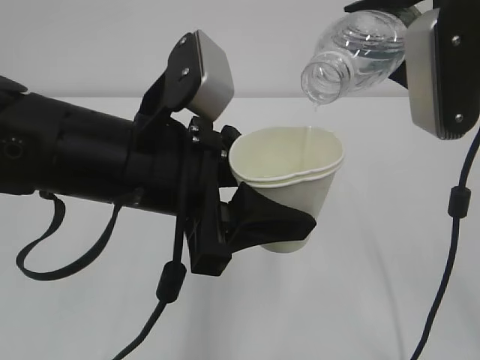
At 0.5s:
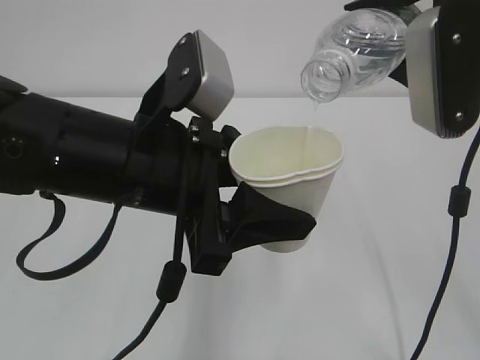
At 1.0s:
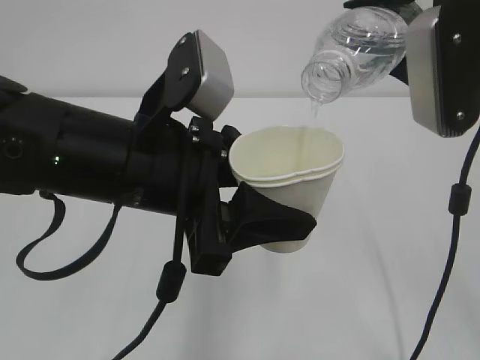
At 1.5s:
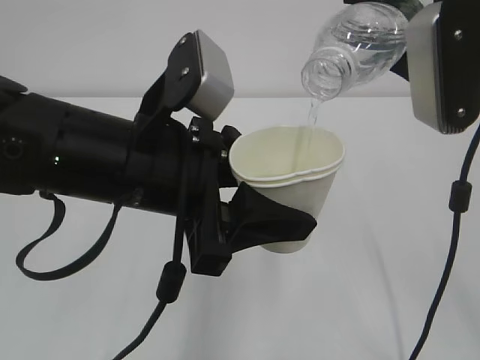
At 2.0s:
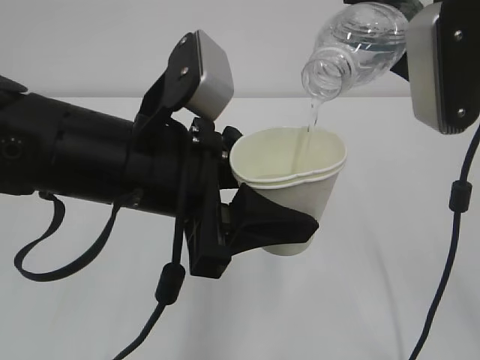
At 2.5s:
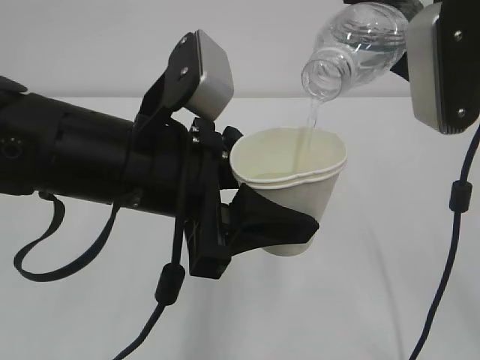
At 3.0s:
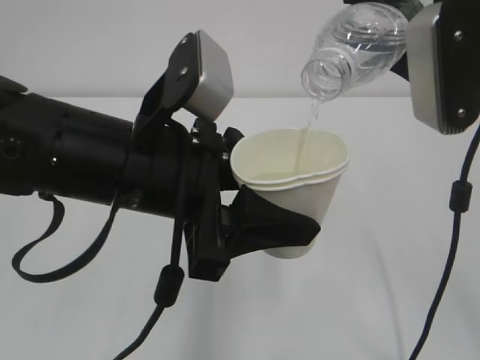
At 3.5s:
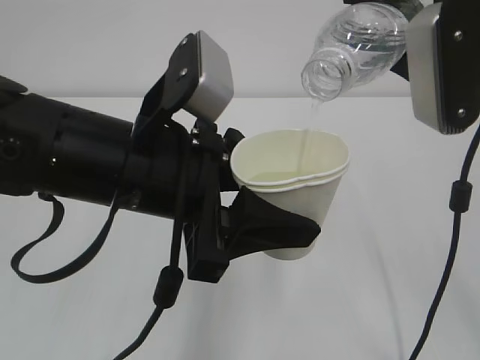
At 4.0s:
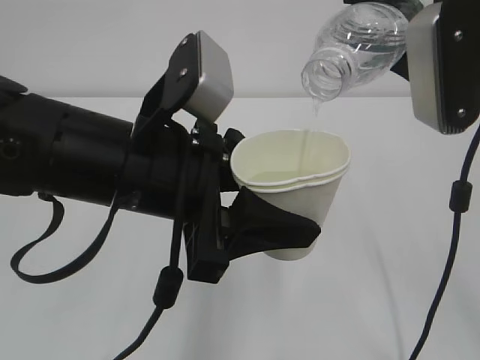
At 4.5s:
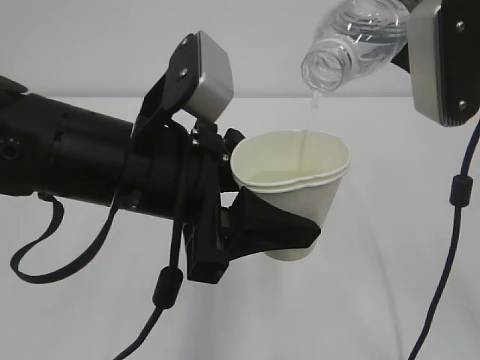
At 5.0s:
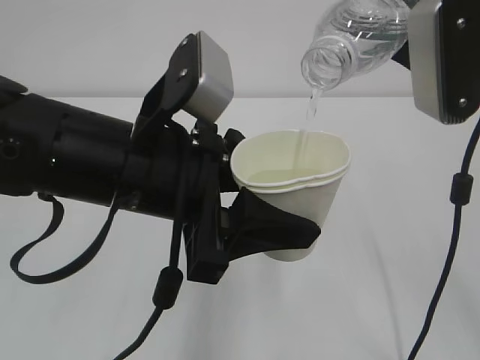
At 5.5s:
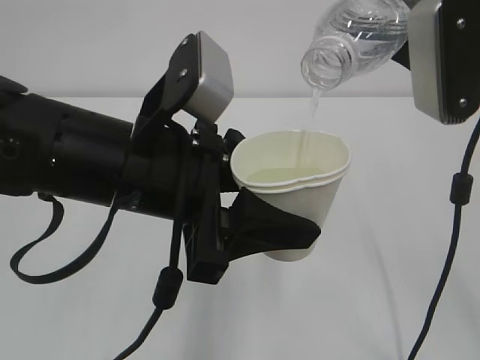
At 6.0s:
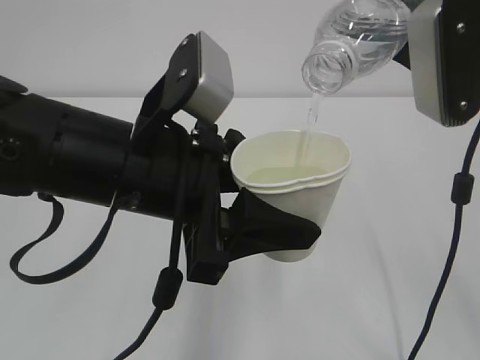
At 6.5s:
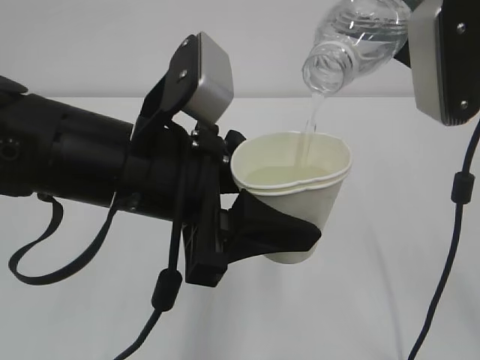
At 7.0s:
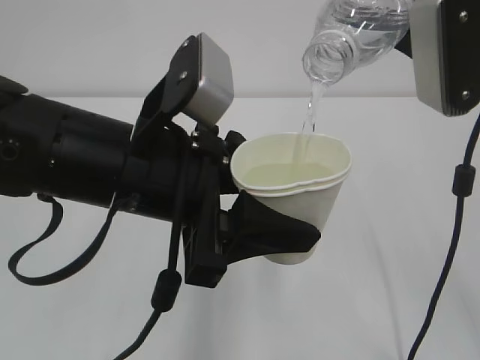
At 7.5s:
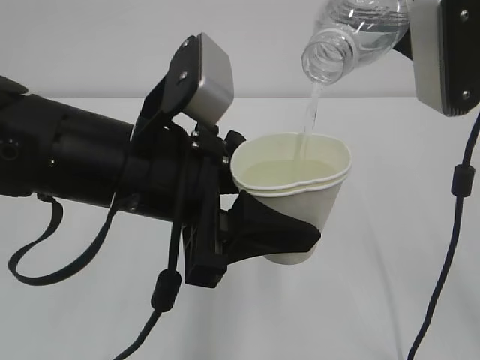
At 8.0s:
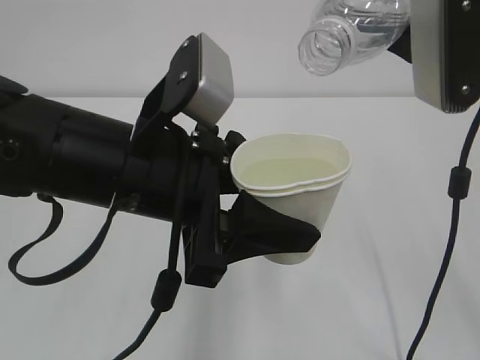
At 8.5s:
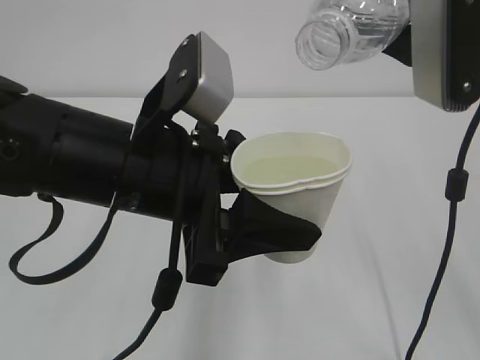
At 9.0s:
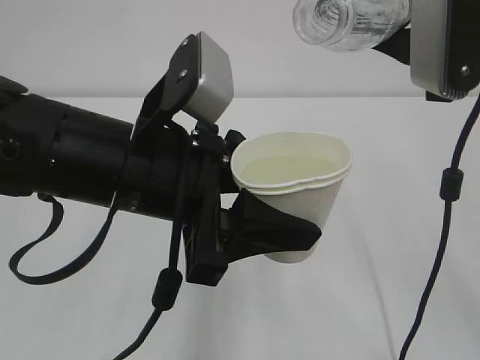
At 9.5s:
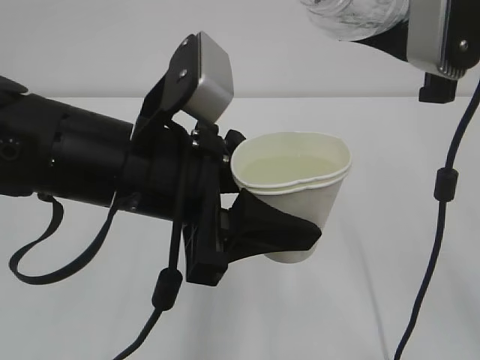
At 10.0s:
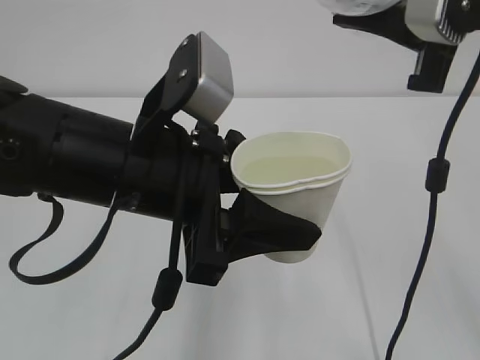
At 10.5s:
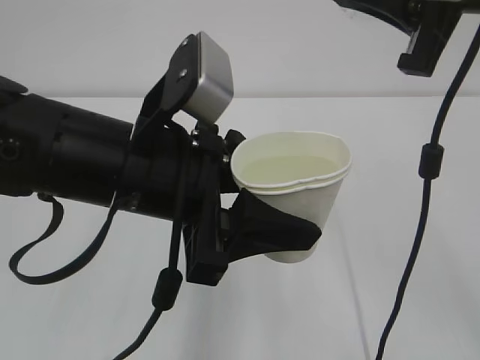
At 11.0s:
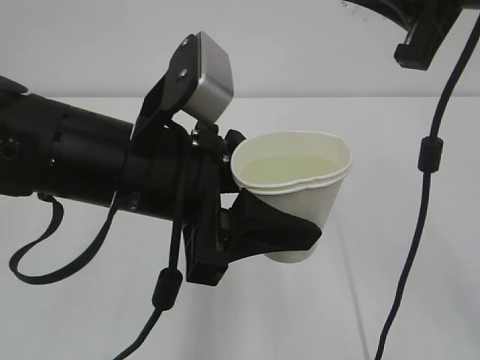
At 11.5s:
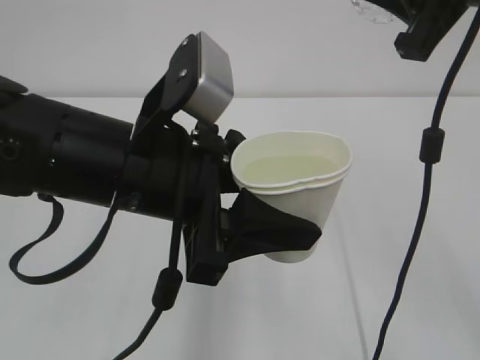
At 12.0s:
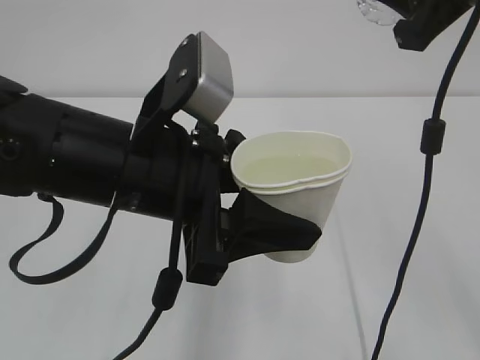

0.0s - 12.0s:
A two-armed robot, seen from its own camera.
0.0s - 6.0s: Neither gripper changes place.
6.0s - 8.0s: Both grippers stay put.

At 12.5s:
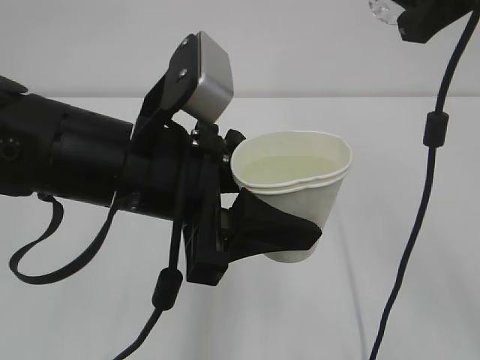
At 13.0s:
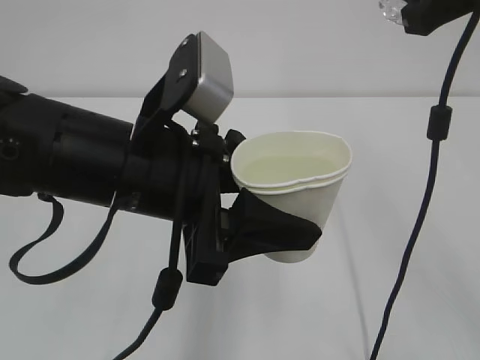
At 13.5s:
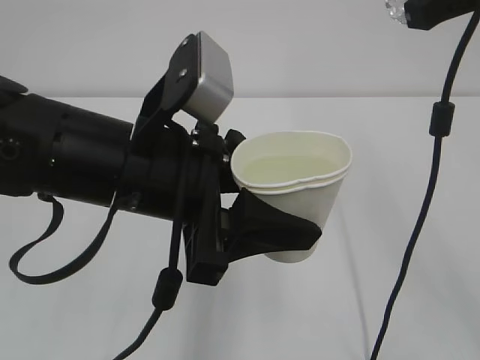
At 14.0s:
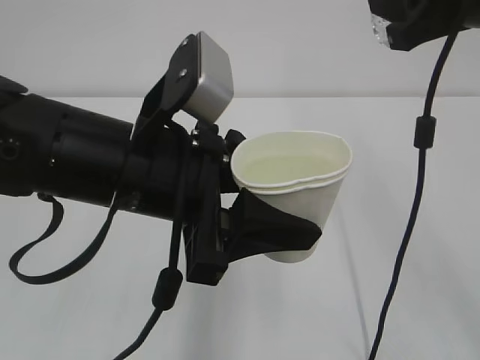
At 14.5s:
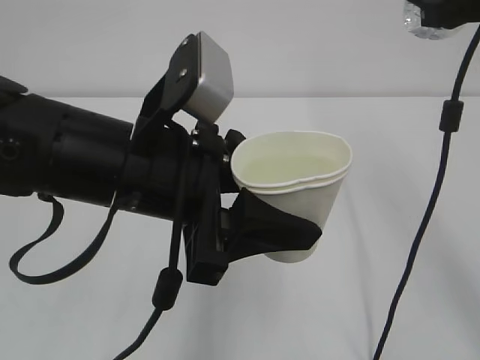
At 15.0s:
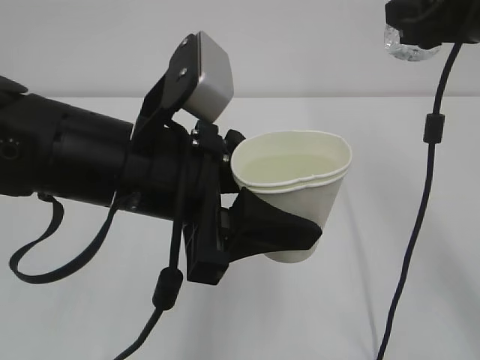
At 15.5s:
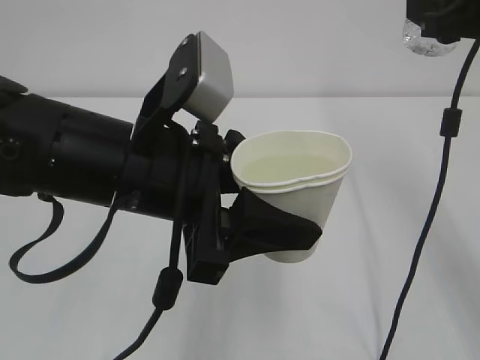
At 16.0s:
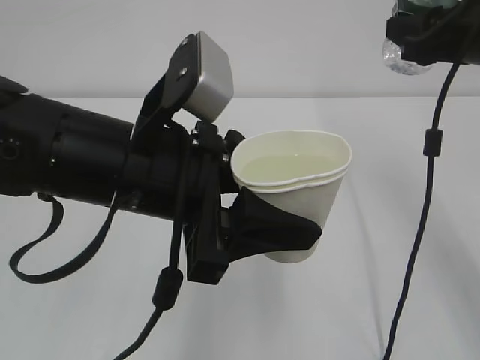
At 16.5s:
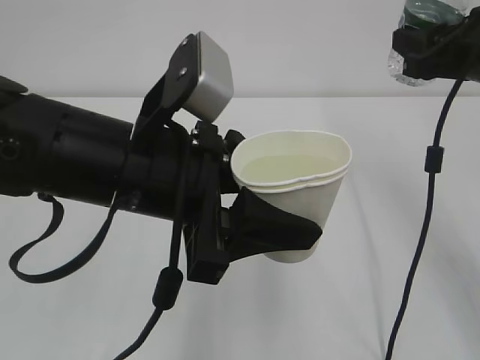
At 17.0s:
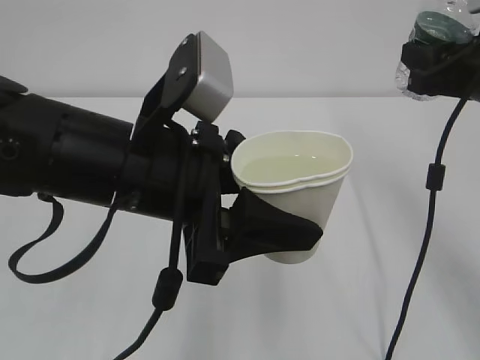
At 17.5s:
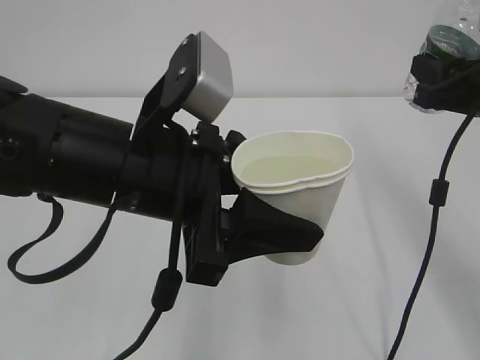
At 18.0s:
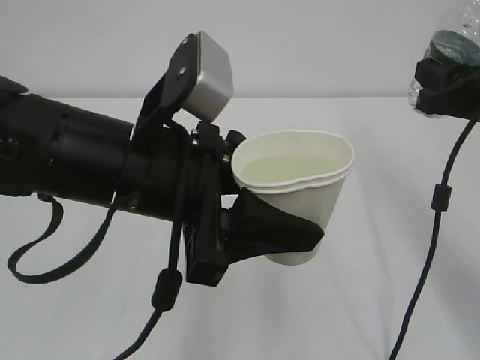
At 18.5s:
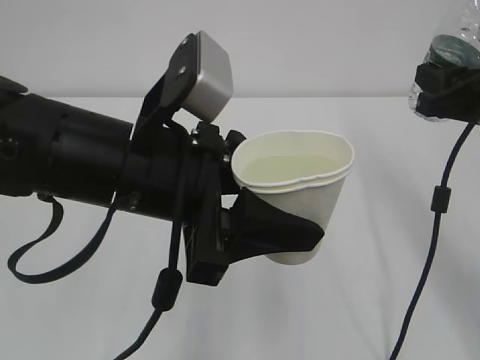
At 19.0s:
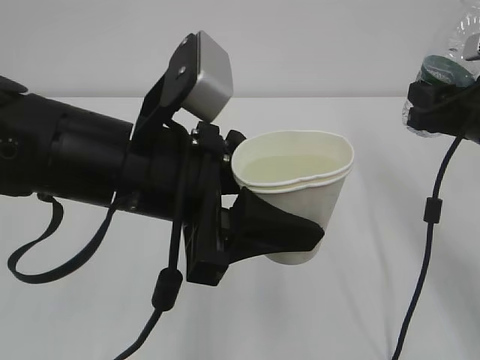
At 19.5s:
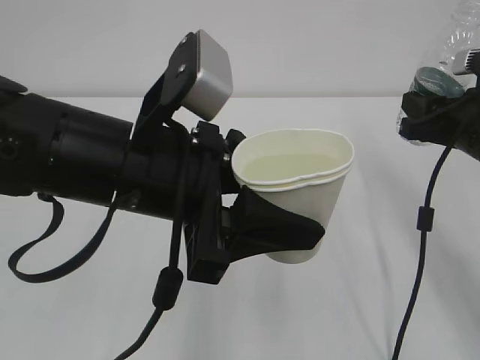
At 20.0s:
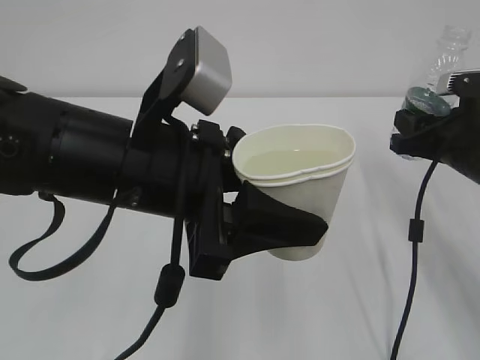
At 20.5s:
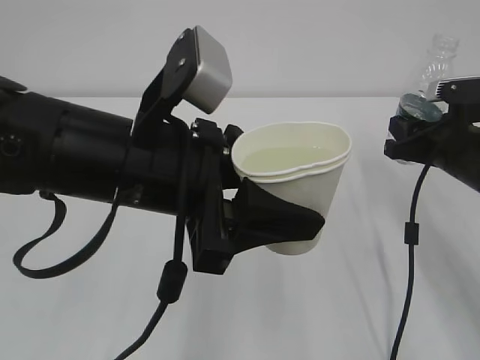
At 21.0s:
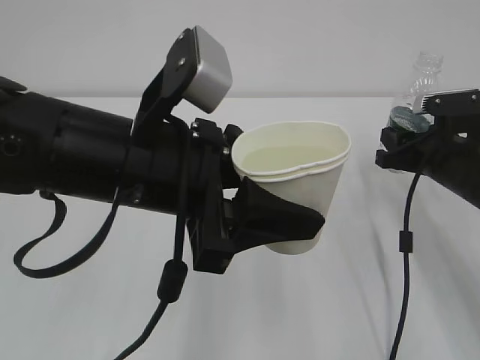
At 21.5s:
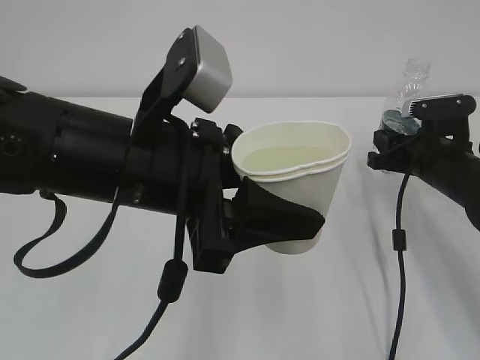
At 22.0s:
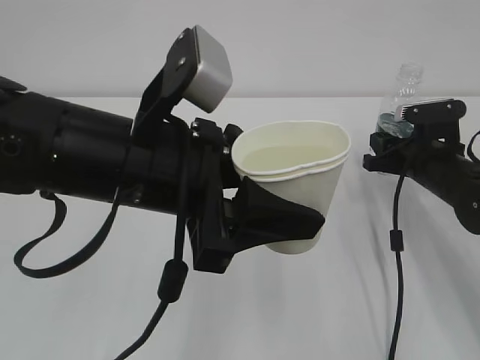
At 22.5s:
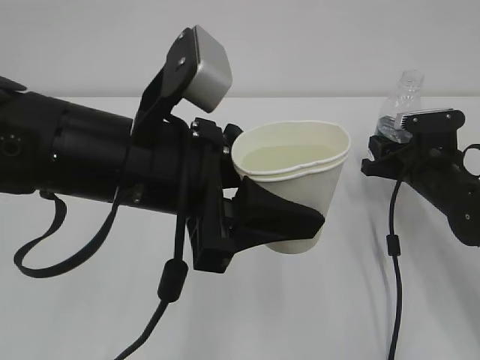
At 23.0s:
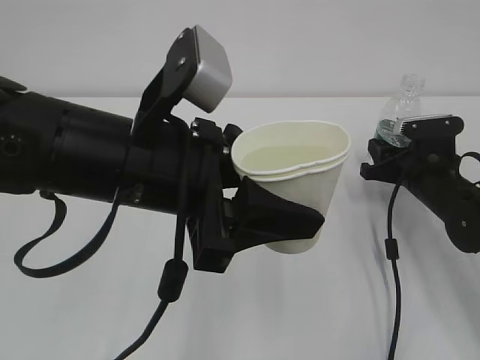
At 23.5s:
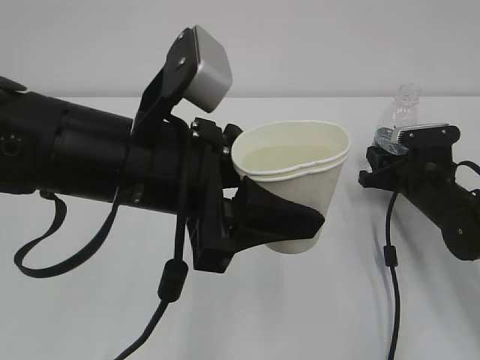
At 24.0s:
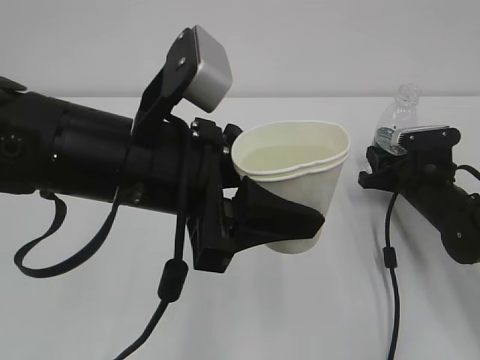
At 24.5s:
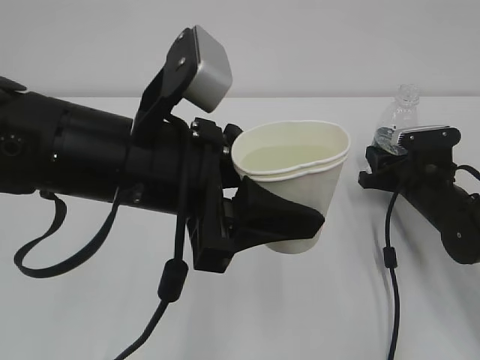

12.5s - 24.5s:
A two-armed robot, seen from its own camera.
14.5s - 16.5s: The right gripper shifts roughly 5 cm downward.
16.5s - 18.5s: The grippers make only small movements.
18.5s - 20.5s: The right gripper goes roughly 10 cm downward.
20.5s - 22.5s: The right gripper heads downward, covering some 5 cm.
22.5s - 24.5s: The grippers stay close to where they were, moving slightly.

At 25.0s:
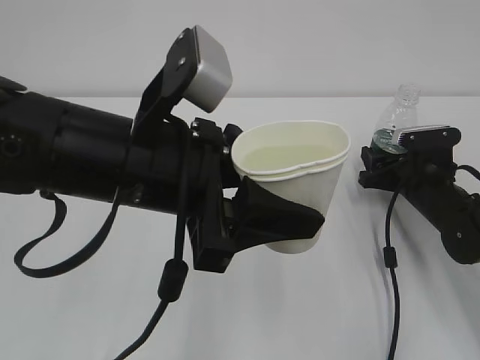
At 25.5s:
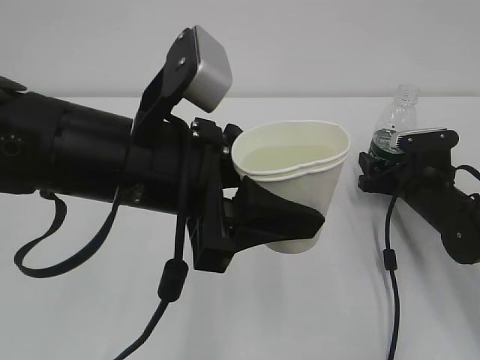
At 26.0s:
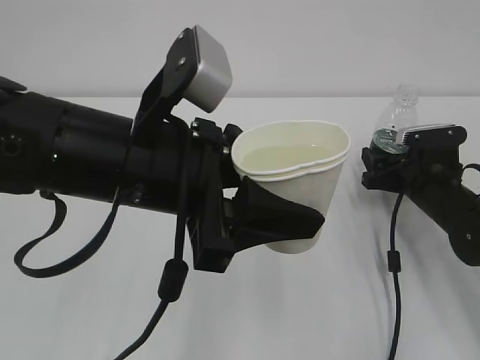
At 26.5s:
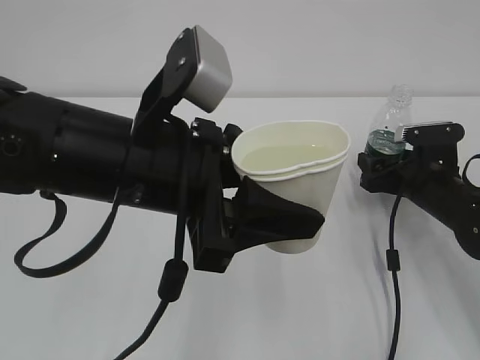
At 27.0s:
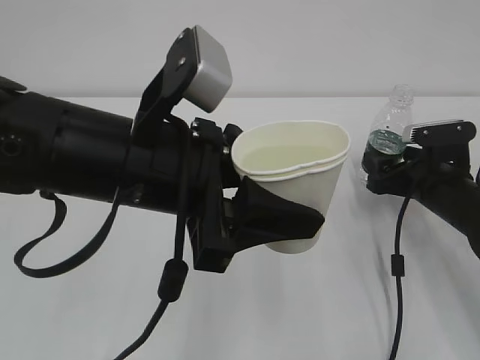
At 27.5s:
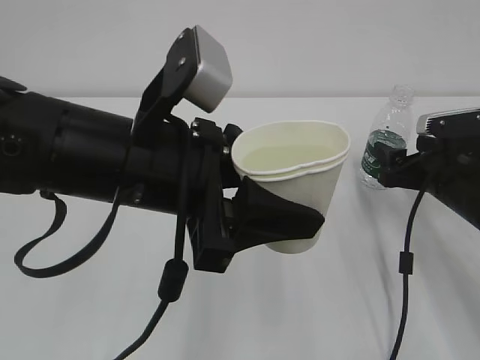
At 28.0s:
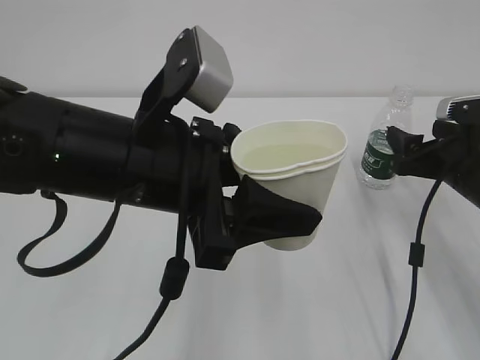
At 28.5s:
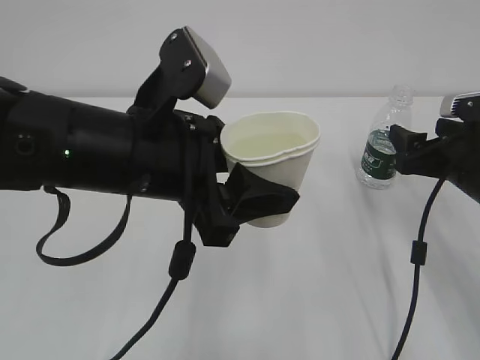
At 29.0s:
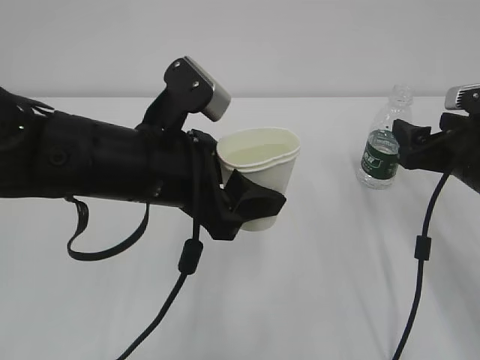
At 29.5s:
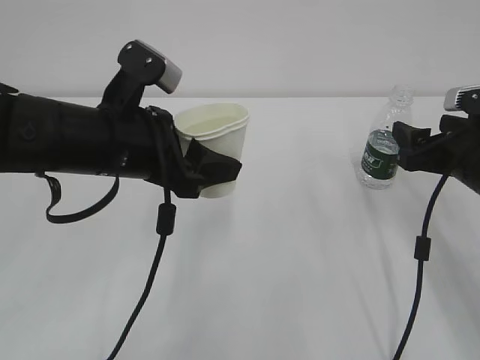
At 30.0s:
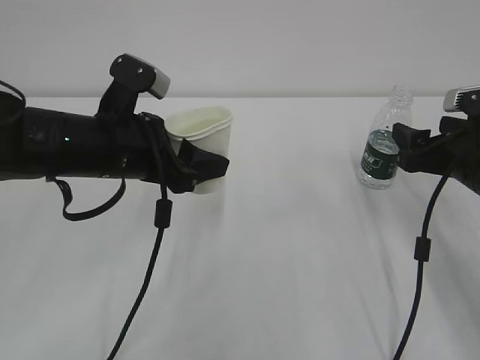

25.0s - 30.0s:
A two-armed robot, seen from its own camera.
25.0s - 27.5s: The right gripper travels upward and backward by roughly 10 cm.
27.5s - 30.0s: The left gripper travels forward, to the left and downward by approximately 10 cm; the right gripper moves approximately 5 cm.
